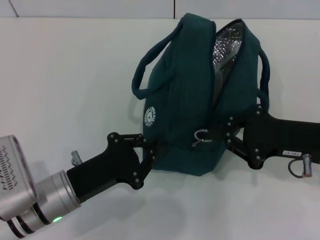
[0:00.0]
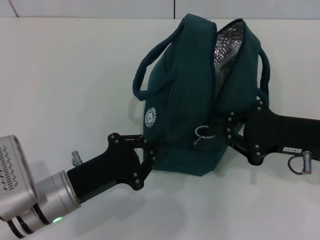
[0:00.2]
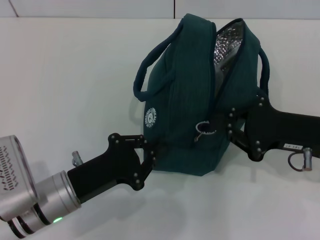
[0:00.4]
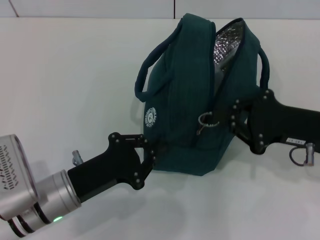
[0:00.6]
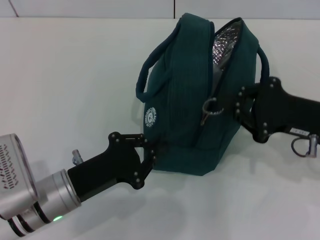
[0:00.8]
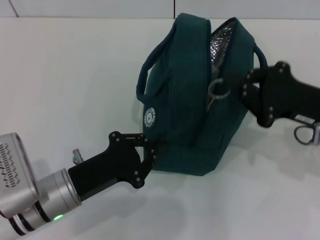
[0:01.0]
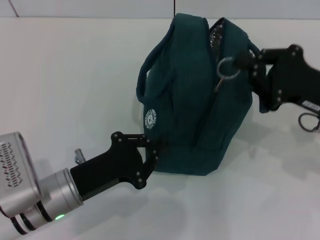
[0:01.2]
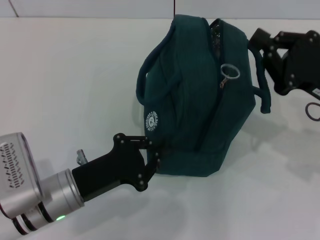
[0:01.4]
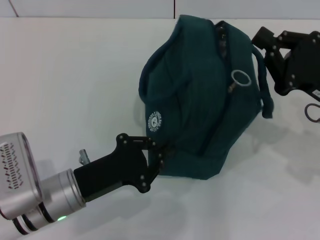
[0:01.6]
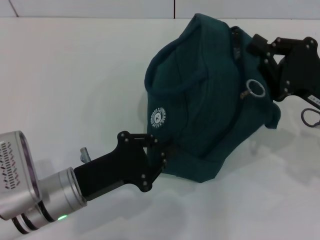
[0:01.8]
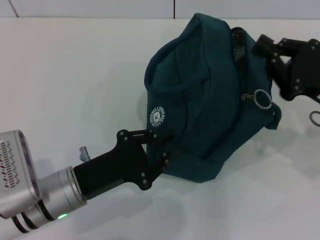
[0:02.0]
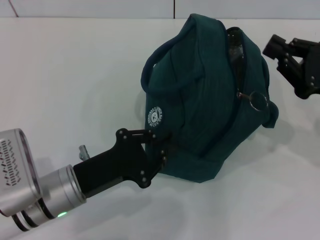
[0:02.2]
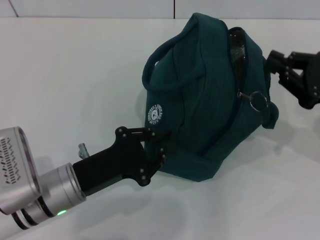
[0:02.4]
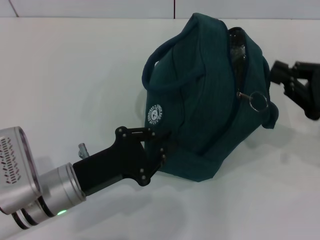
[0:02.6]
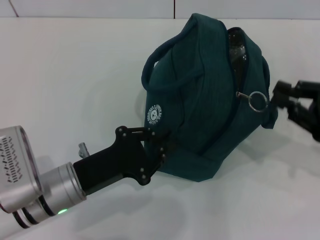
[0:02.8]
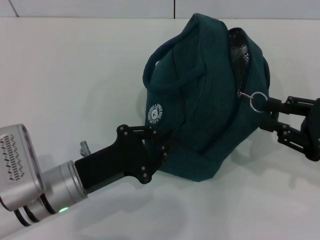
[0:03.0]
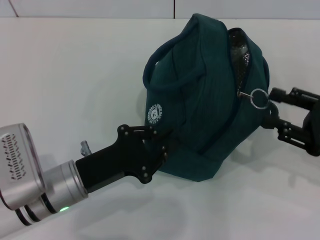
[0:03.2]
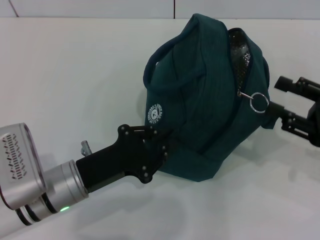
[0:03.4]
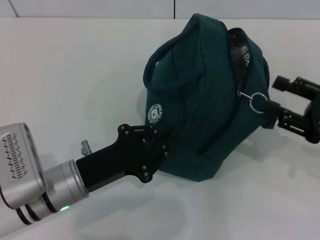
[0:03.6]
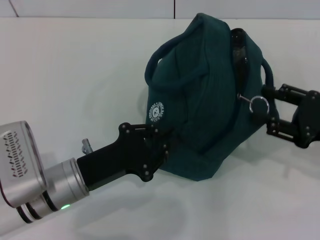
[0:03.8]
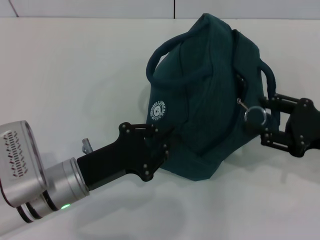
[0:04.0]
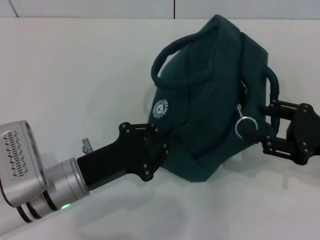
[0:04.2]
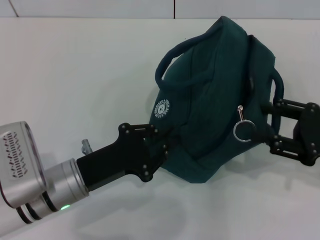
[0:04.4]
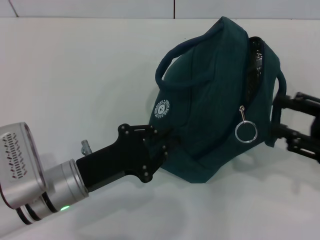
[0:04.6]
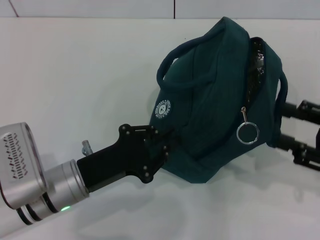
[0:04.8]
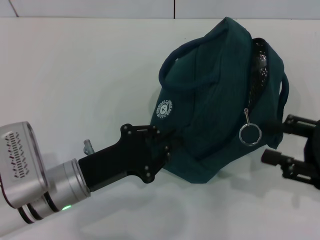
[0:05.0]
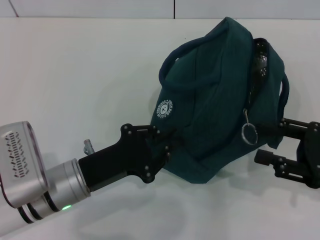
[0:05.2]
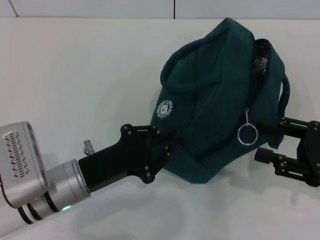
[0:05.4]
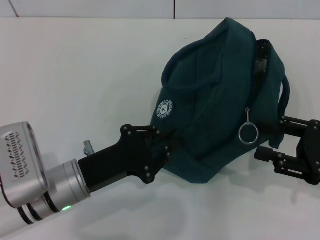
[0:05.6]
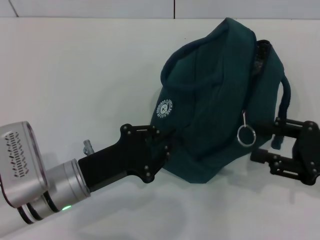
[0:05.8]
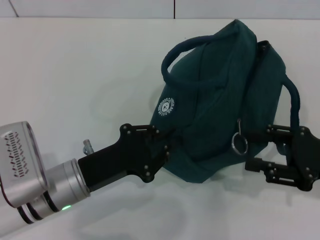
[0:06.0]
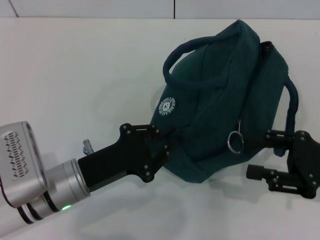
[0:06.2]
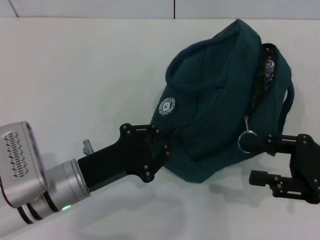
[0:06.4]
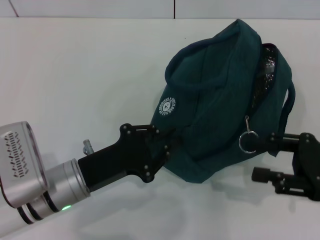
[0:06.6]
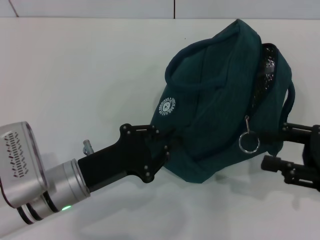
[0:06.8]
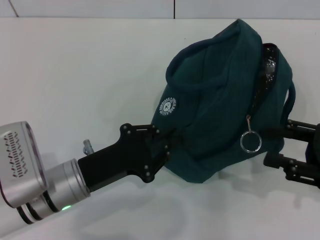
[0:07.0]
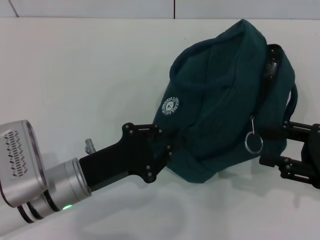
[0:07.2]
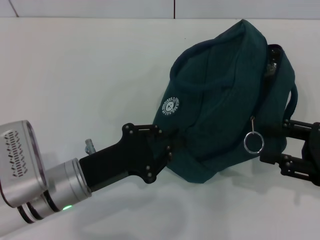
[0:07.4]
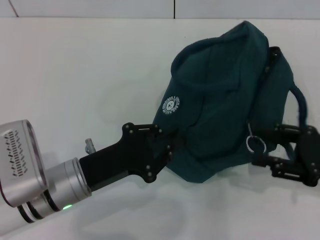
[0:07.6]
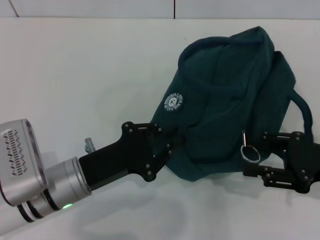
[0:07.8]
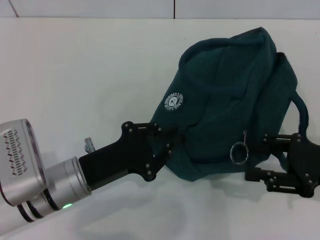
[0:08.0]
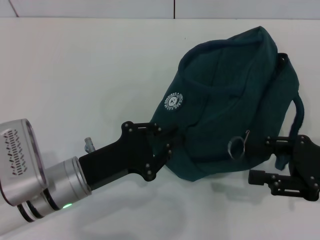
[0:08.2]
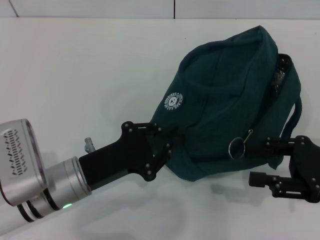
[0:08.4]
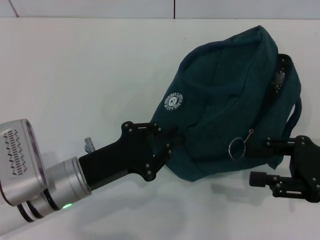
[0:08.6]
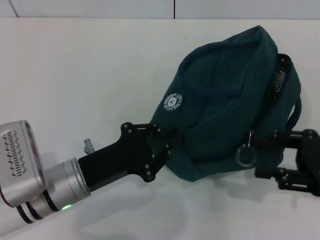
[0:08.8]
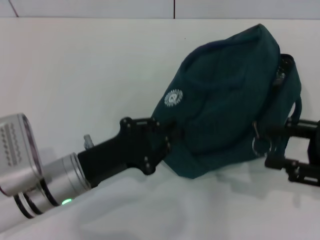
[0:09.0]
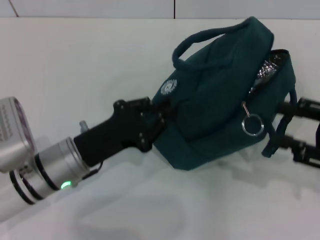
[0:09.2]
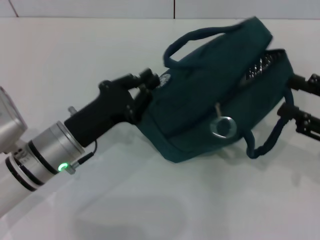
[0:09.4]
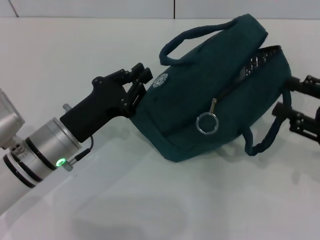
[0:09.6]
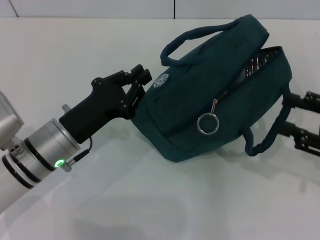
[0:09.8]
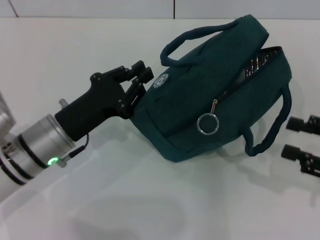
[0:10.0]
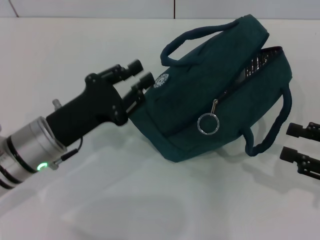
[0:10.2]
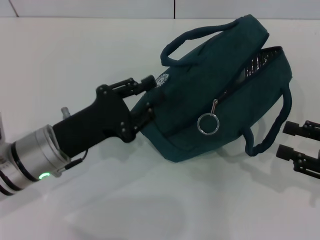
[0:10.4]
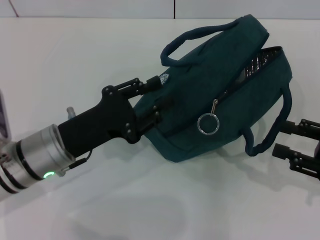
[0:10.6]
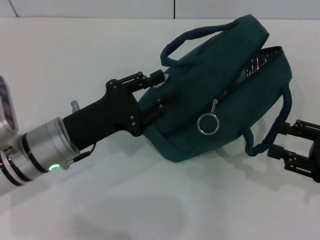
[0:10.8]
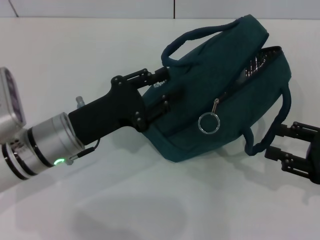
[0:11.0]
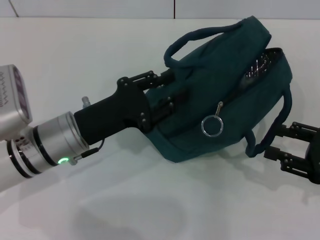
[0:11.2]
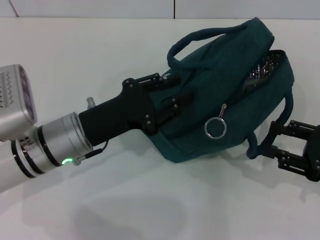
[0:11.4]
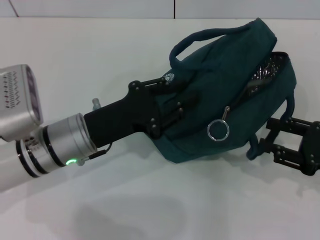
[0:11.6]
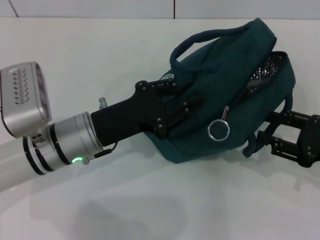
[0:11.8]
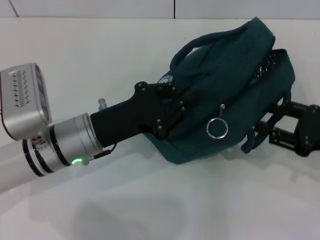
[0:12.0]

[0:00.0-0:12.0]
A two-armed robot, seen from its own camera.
0:01.6 to 0:03.0: The right gripper changes place by approximately 5 cm.
0:03.0 to 0:04.4: The right gripper opens its fingers.
0:04.4 to 0:09.0: The grippers make only small movements.

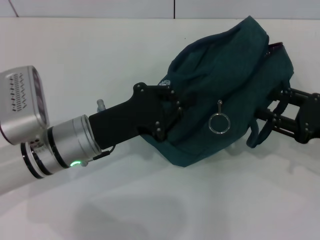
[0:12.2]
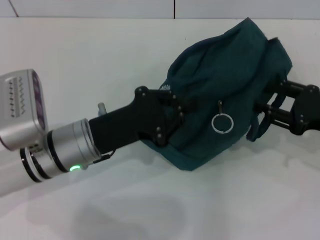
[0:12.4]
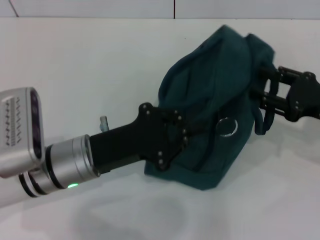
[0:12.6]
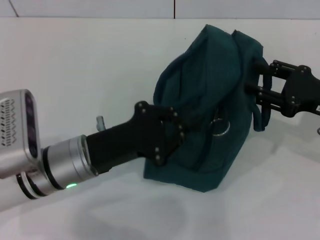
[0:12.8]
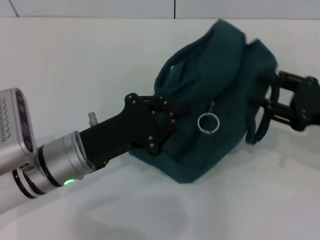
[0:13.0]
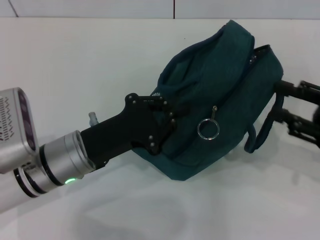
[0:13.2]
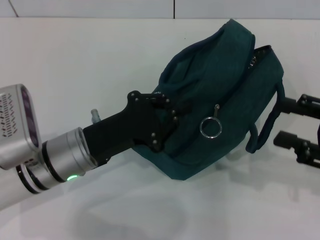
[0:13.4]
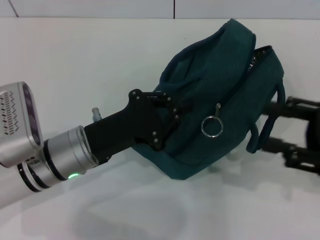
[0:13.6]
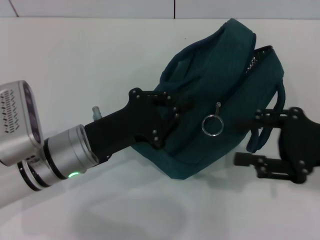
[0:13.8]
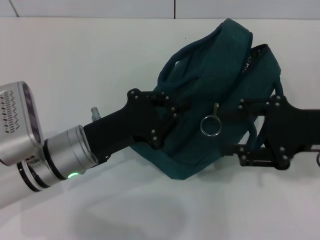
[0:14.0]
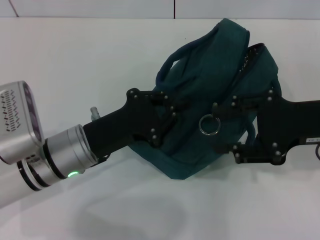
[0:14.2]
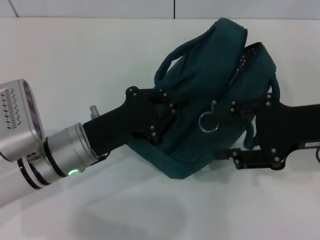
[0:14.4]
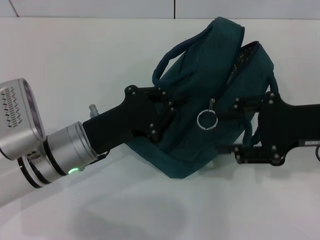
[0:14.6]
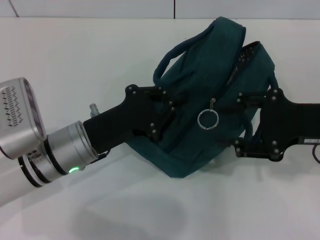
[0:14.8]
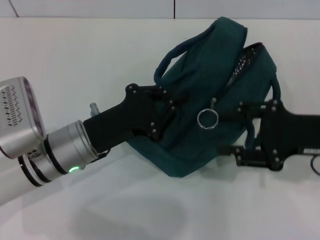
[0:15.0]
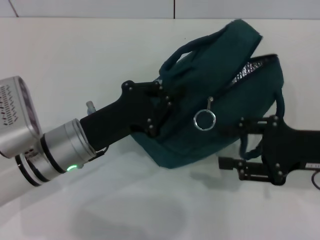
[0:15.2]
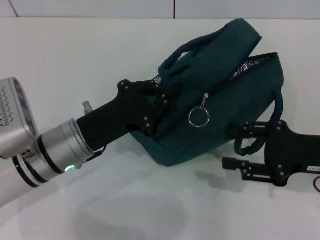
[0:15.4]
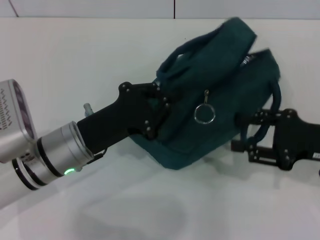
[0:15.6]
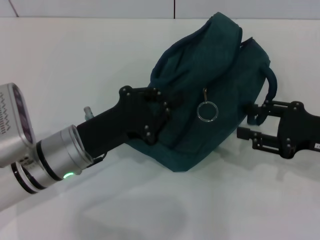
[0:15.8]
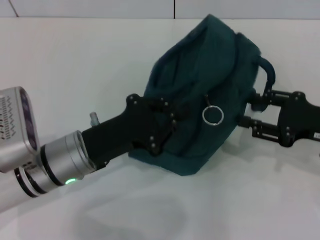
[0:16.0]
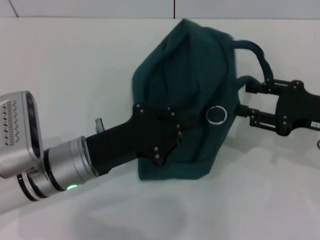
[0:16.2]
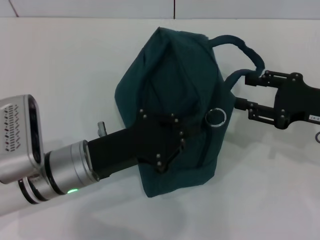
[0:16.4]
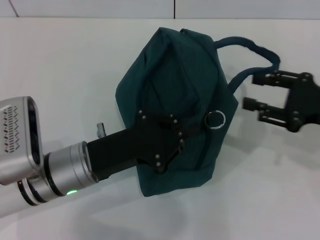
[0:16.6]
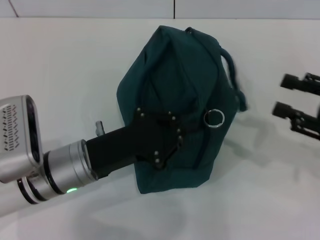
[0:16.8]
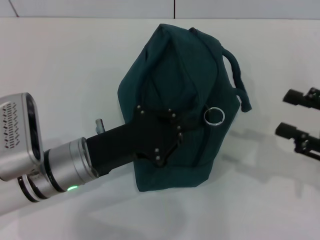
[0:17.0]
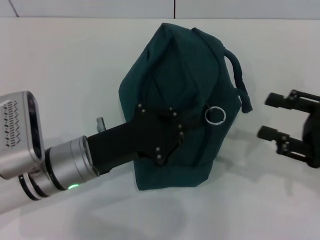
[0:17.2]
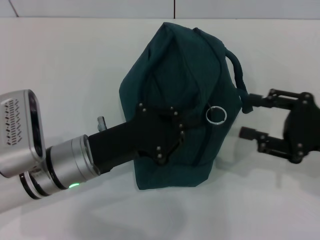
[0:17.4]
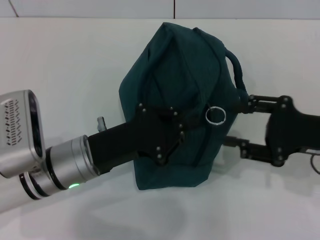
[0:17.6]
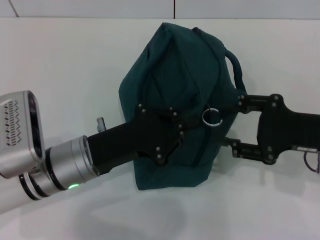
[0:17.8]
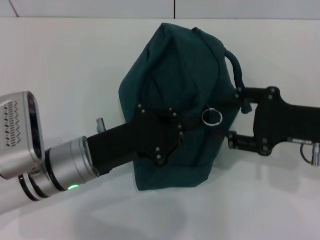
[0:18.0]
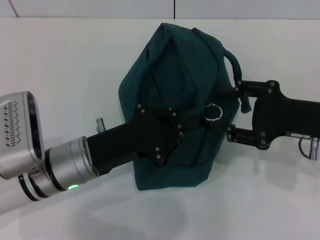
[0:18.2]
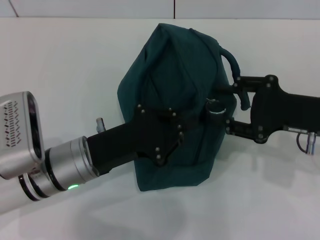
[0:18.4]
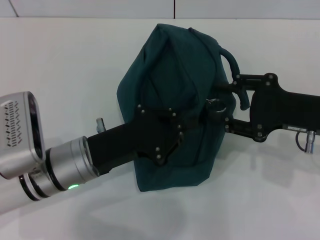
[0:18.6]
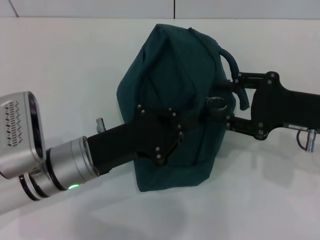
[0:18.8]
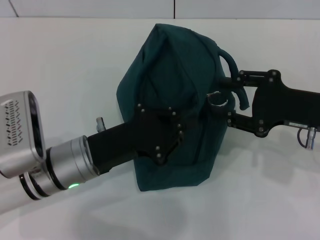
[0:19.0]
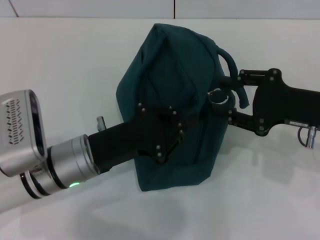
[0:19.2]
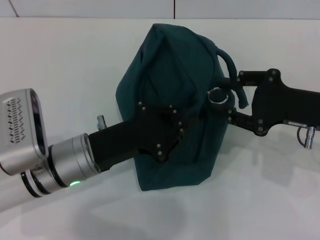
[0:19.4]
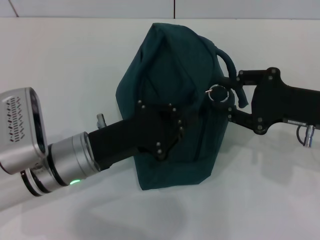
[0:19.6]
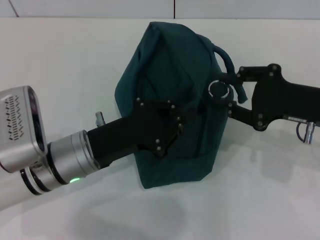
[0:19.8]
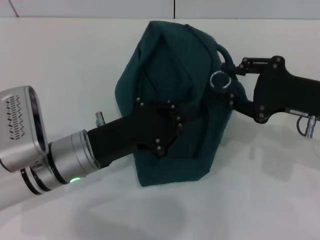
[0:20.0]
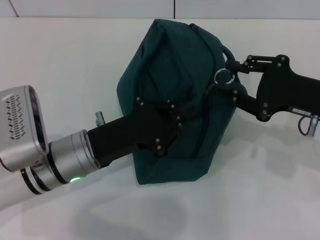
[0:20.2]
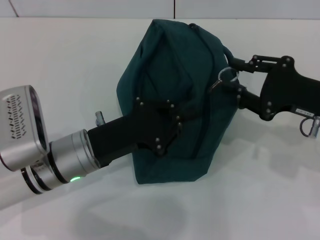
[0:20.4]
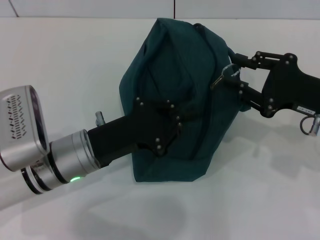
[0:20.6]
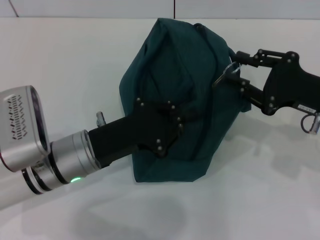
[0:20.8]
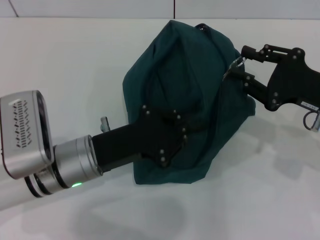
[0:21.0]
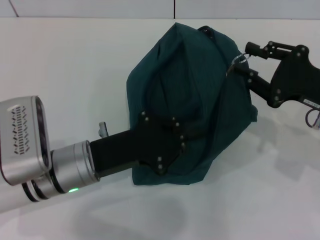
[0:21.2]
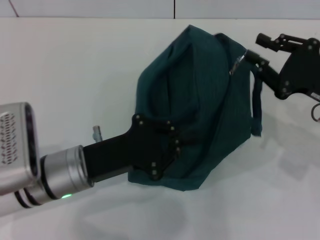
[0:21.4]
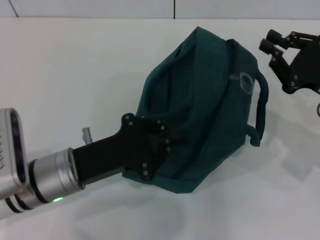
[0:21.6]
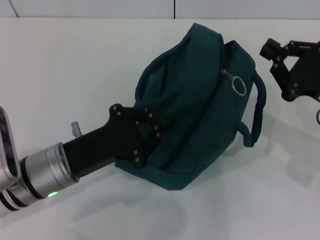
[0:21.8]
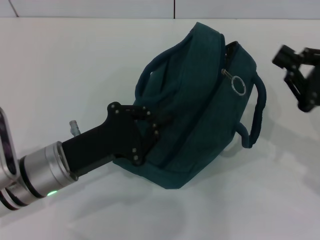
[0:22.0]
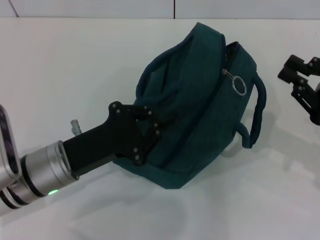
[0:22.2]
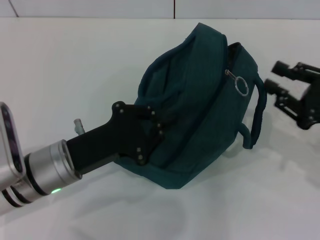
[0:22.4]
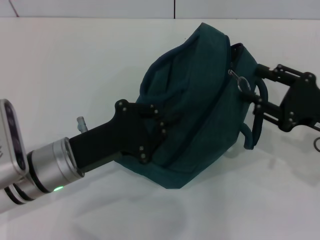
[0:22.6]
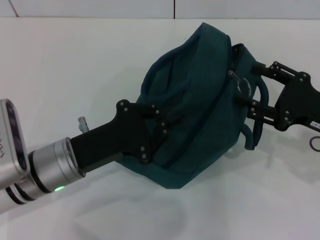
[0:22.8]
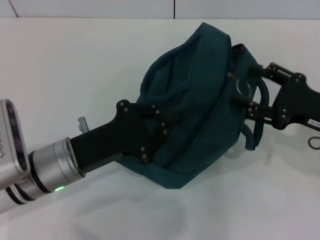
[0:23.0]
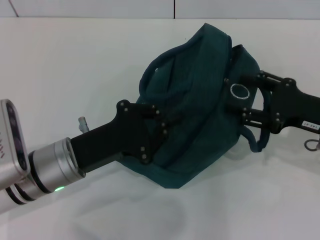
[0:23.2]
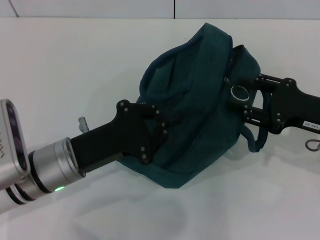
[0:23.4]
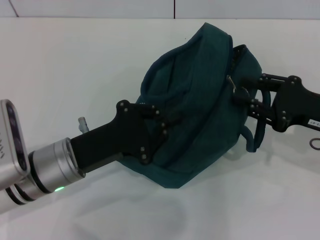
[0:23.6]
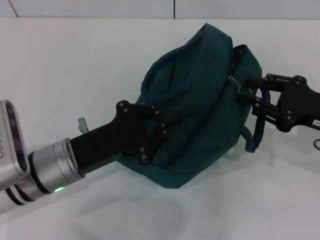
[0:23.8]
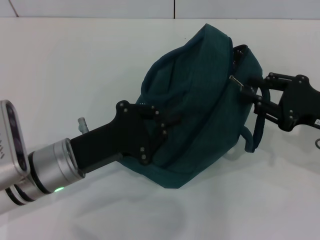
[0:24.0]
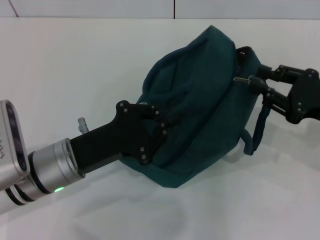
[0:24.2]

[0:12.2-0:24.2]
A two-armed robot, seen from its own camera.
0:12.2 to 0:13.8: The right gripper shifts by roughly 5 cm.
0:13.8 to 0:15.2: The grippers move only a little.
0:18.2 to 0:21.2: There are only small adjustments of the grippers.
0:21.2 to 0:22.6: The right gripper closes, then opens again.
0:22.6 to 0:24.2: The right gripper opens and closes again.
